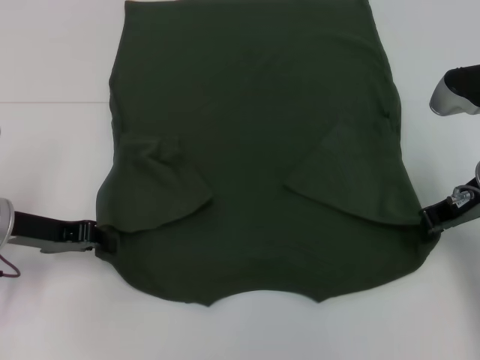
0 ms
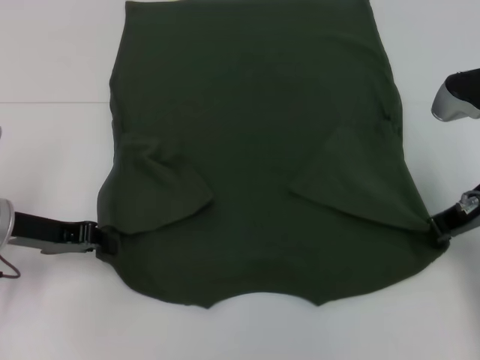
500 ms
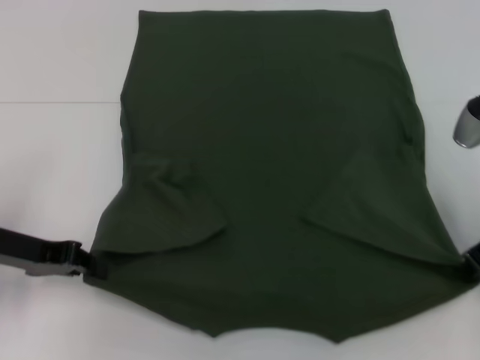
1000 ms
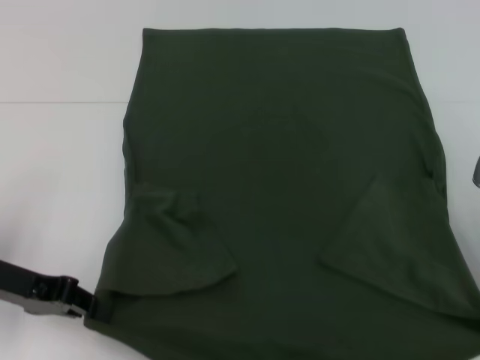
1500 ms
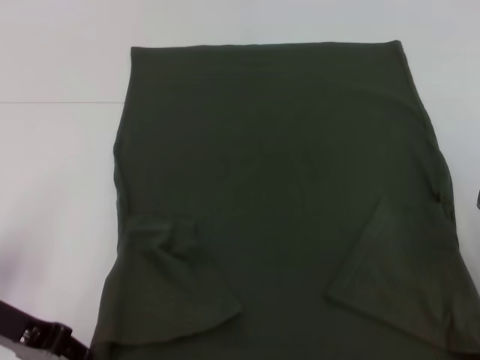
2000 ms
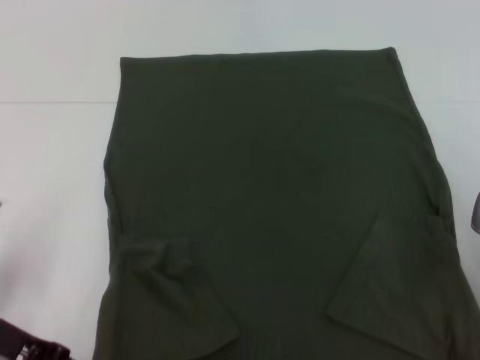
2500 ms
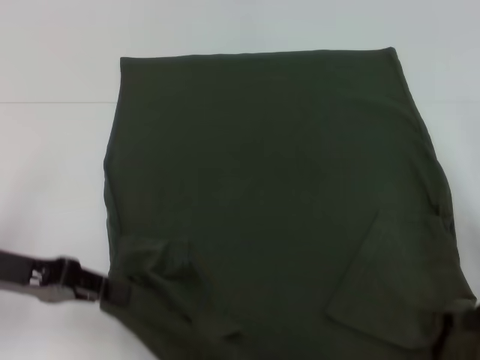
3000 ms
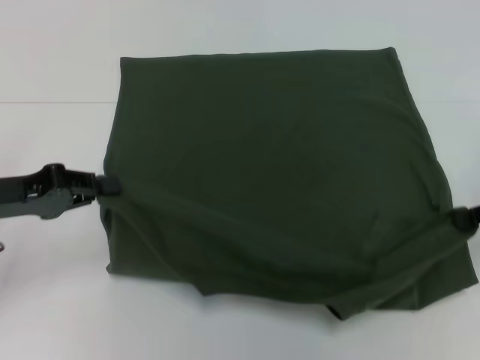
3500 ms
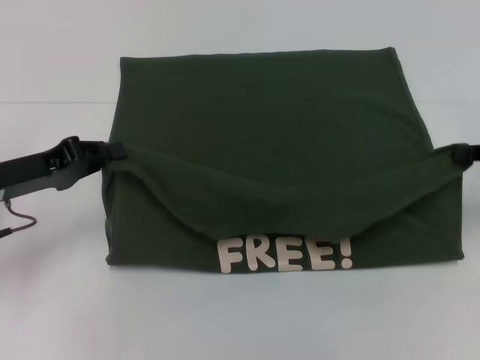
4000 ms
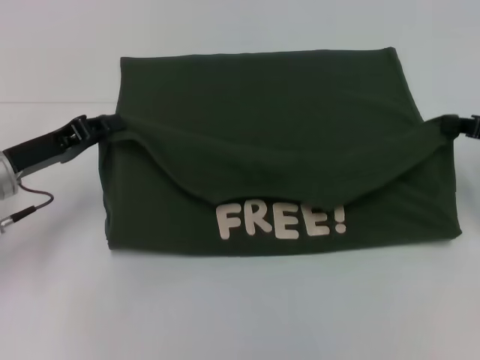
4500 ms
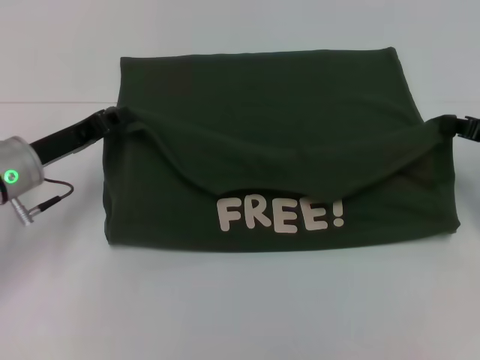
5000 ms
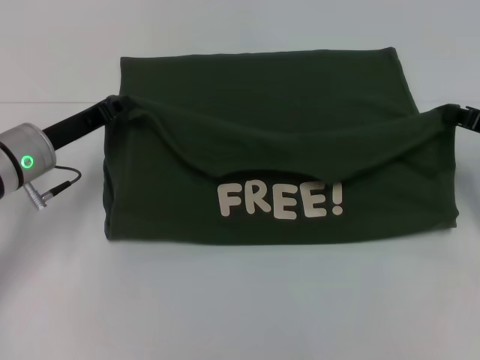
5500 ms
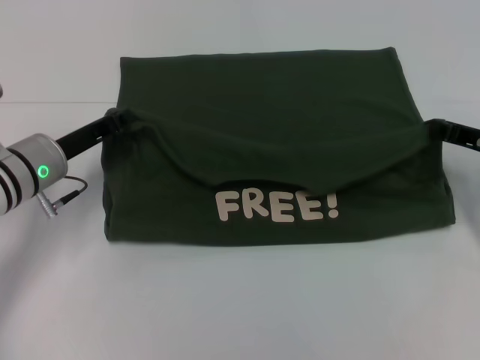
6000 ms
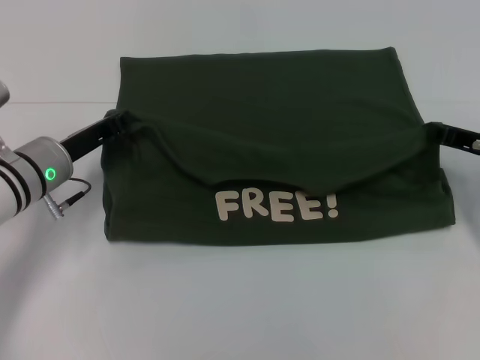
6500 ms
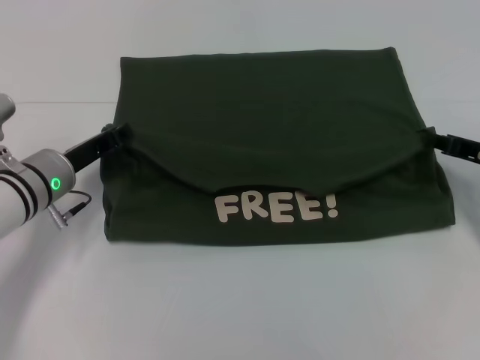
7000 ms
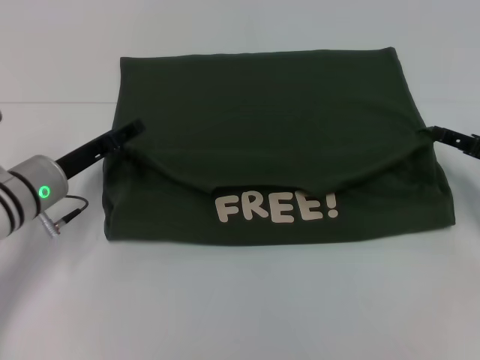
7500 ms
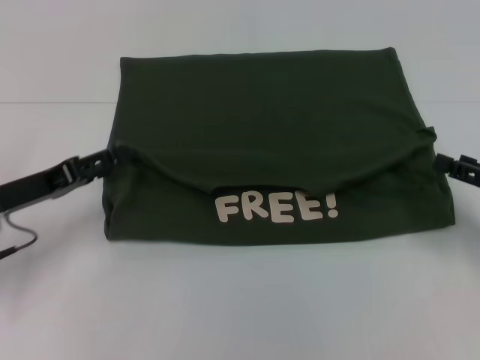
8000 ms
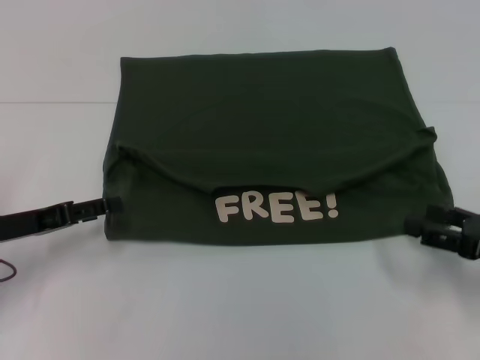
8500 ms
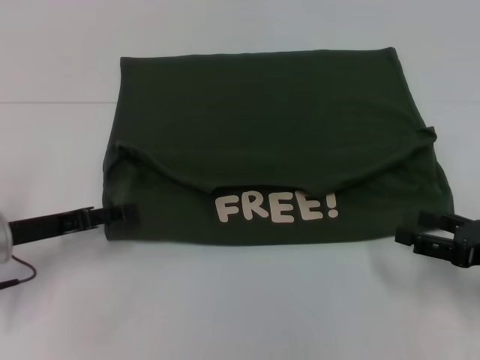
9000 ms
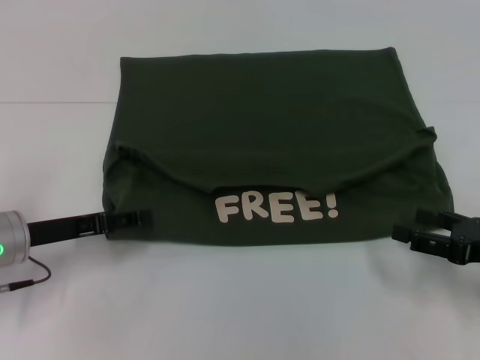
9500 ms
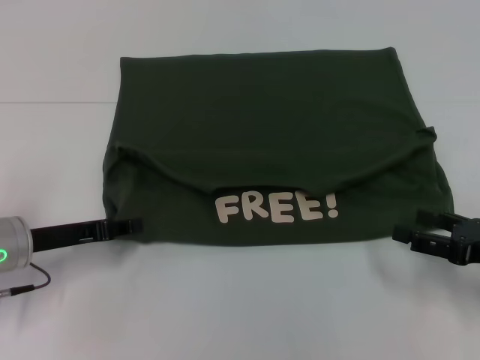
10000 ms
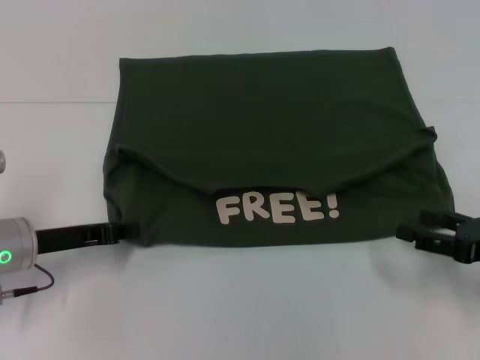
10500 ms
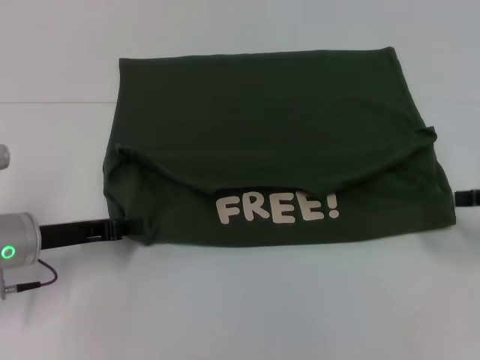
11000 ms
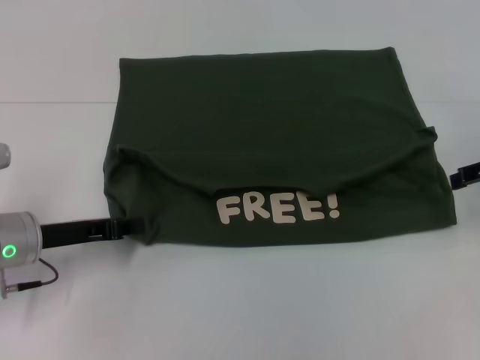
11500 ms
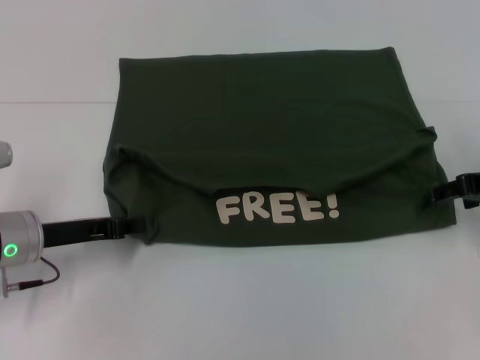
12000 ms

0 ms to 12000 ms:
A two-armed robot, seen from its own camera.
Step, 500 ms to 2000 ms: Pull the clothes with your left hand.
Step, 500 ms to 2000 ms: Pull the clothes with your right hand.
Step, 2500 ms to 8000 ms: Fold the clothes with your left hand.
Step, 2500 ms to 8000 ms: Fold the clothes with your right hand.
0 ms to 2000 ms: The grippers both shift backward by roughly 5 cm.
2000 ms to 4000 ms: The left gripper is displaced forward by roughly 5 cm; the right gripper travels to the right by approximately 5 cm.
4000 ms to 6000 ms: The left gripper is displaced to the right and forward by some 10 cm, while the right gripper travels downward by some 5 cm.
6000 ms to 8000 ms: The right gripper is displaced backward by about 10 cm, and opens up. Meanwhile the left gripper shifts about 10 cm backward and to the left, and opens up.
10000 ms to 12000 ms: The right gripper goes approximately 15 cm forward and upward. Meanwhile the left gripper closes its fingers.

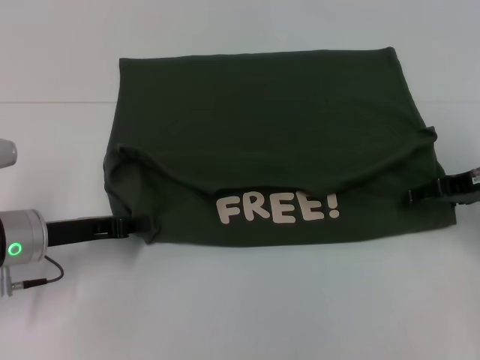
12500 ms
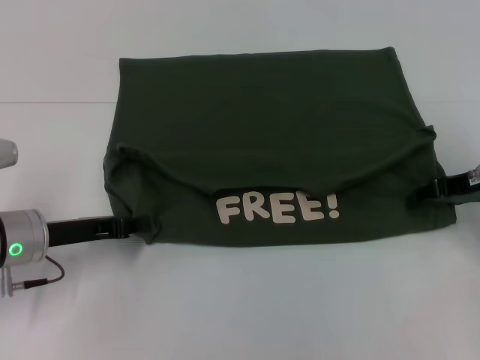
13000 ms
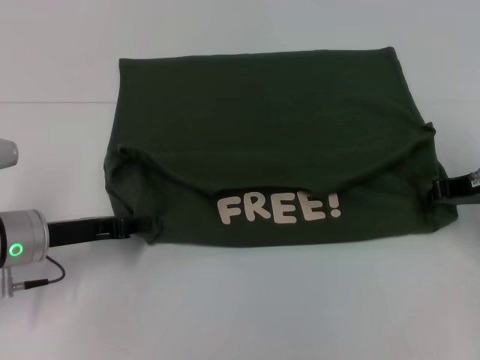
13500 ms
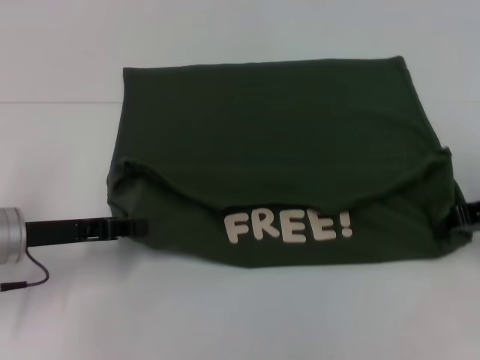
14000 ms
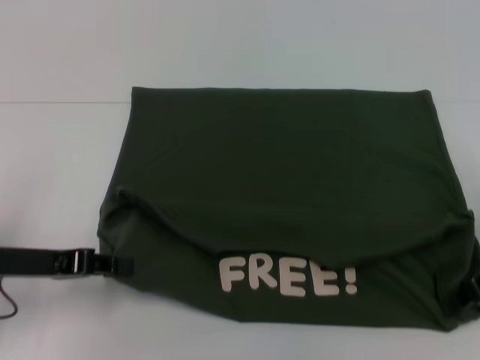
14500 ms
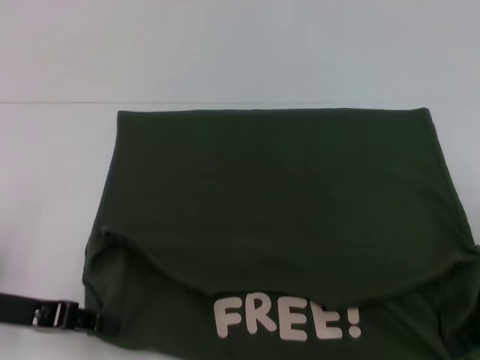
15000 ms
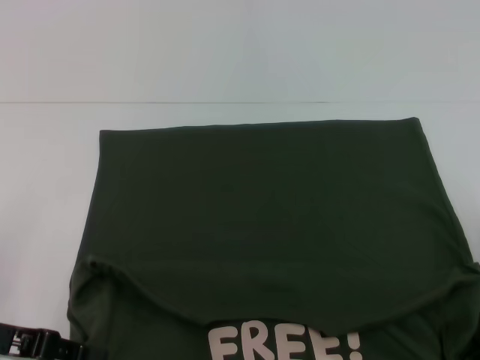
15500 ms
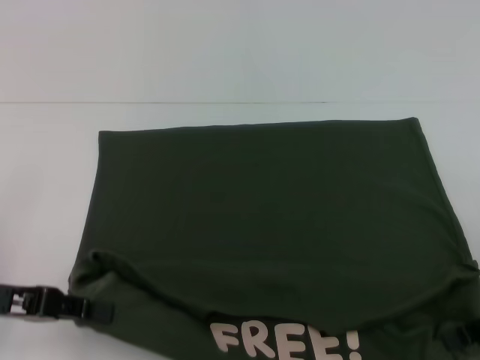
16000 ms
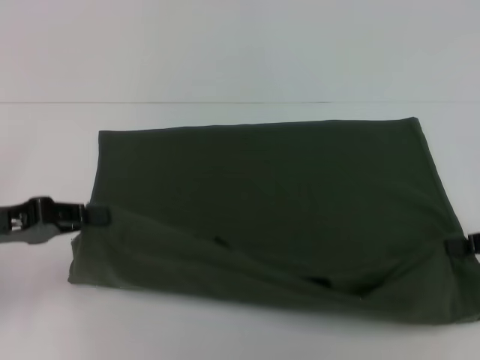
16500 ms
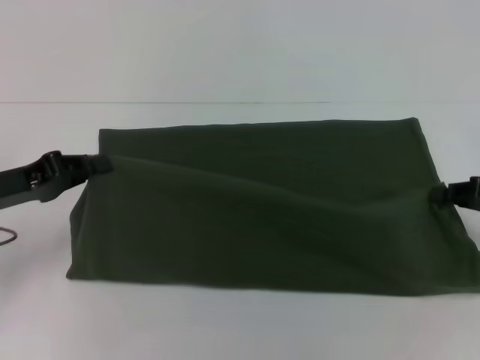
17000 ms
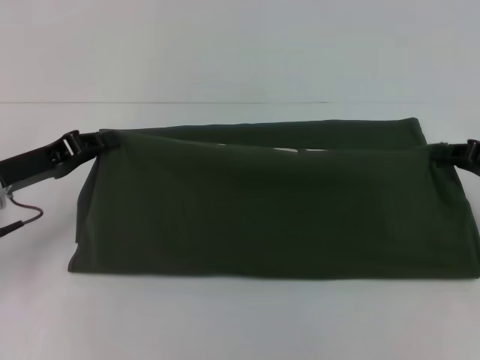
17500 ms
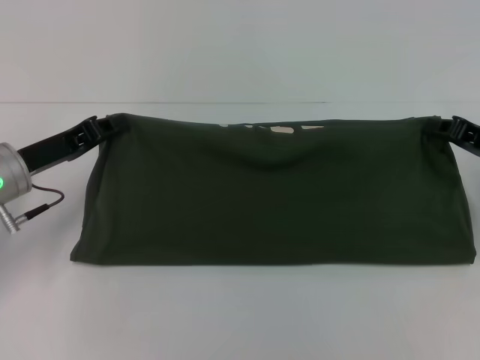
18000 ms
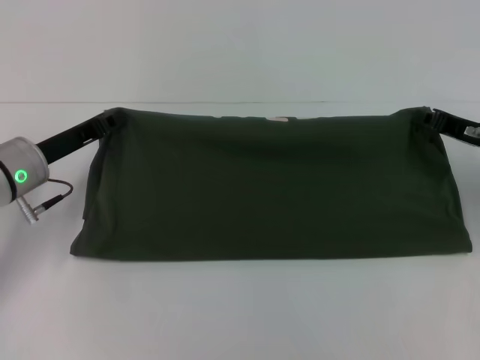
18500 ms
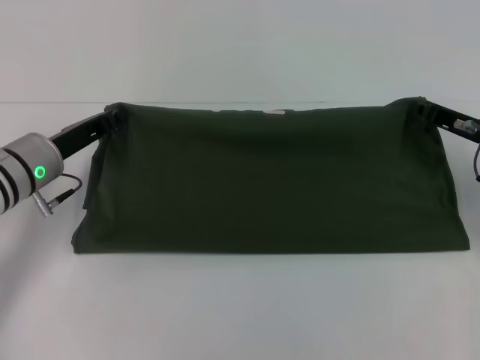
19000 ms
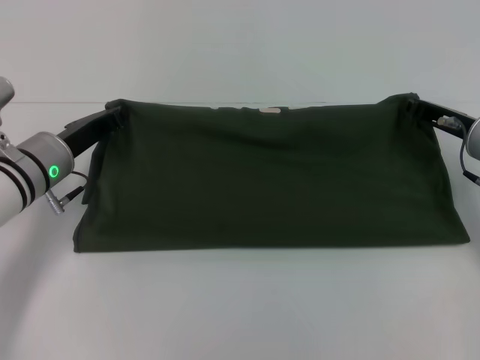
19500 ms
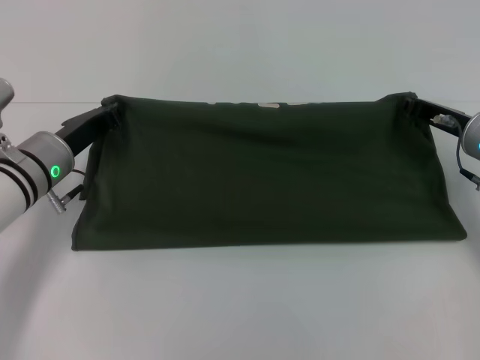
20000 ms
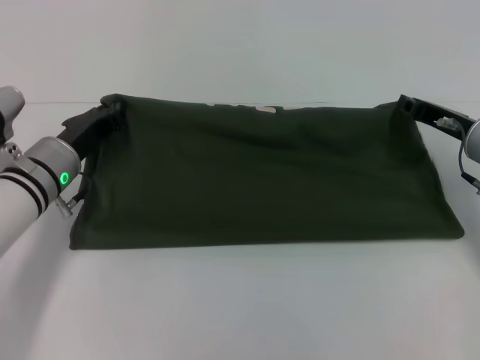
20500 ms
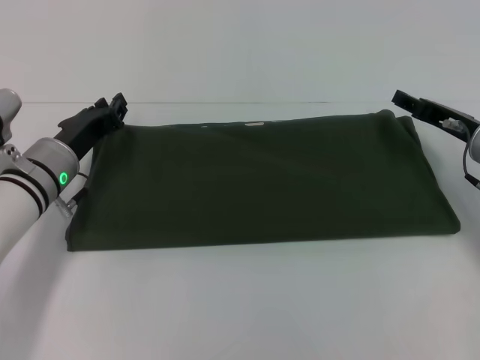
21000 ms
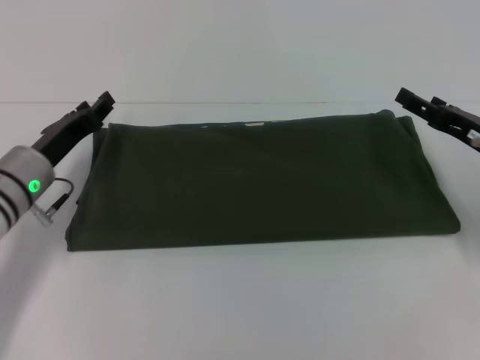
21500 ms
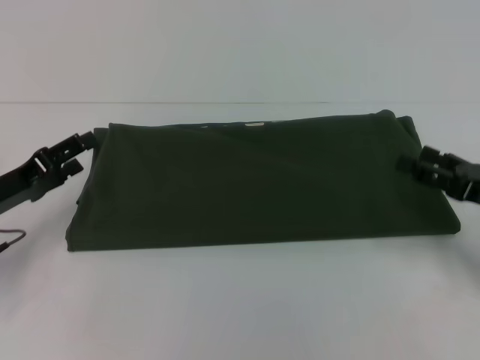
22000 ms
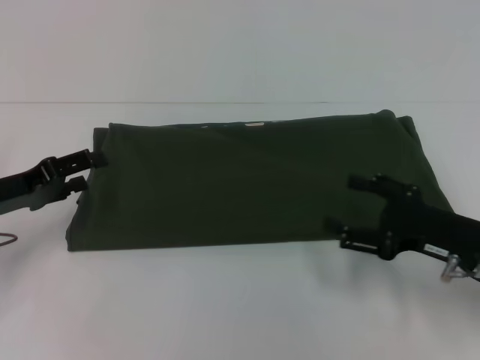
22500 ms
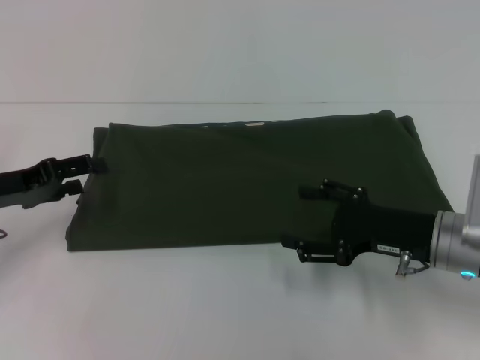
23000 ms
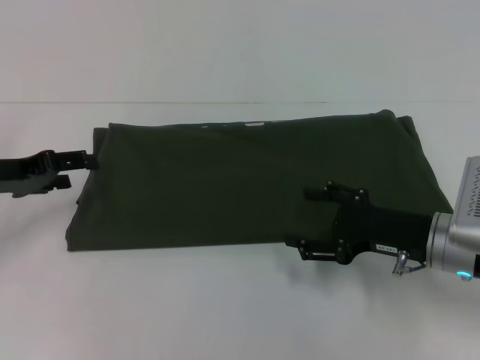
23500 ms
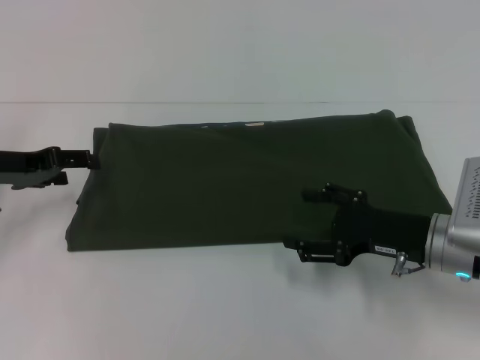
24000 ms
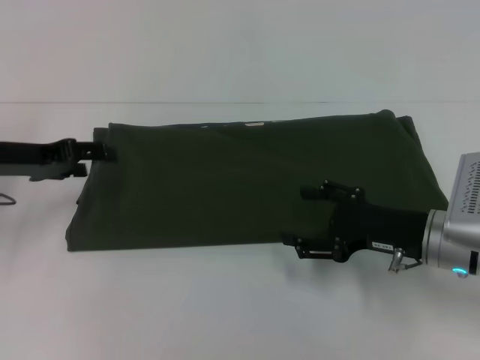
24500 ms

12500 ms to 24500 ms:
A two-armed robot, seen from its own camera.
Step, 12500 ms to 15000 ms: Pull the clothes with your left hand.
Step, 12500 ms to 15000 ms: Pull the clothes with your right hand.
Step, 15500 ms to 21000 ms: Fold the clothes with your right hand.
12500 ms to 14500 ms: The left gripper changes place by roughly 5 cm. The right gripper travels backward by about 5 cm, and closes up.
16500 ms to 18500 ms: The right gripper goes roughly 10 cm forward and to the left. Meanwhile the left gripper moves forward and to the right, roughly 10 cm.
18500 ms to 20500 ms: The grippers make only small movements.
20500 ms to 22500 ms: The left gripper moves to the left and backward, about 10 cm, and opens its fingers. Meanwhile the right gripper shifts roughly 10 cm backward, and opens.
22500 ms to 24500 ms: The left gripper goes approximately 5 cm forward. Meanwhile the right gripper changes place by roughly 5 cm.

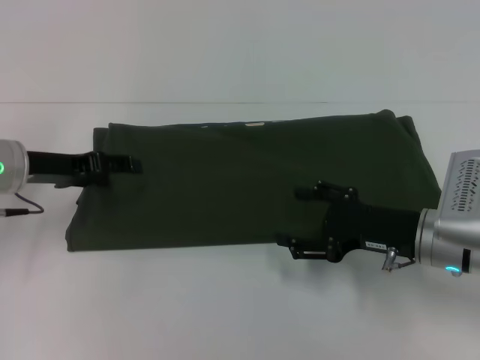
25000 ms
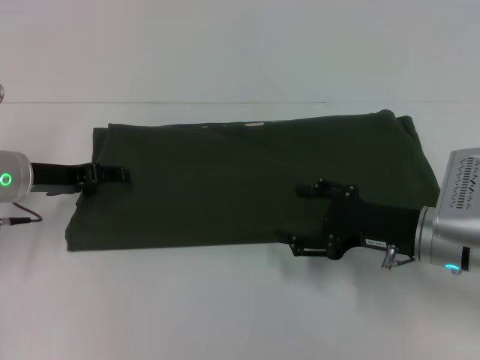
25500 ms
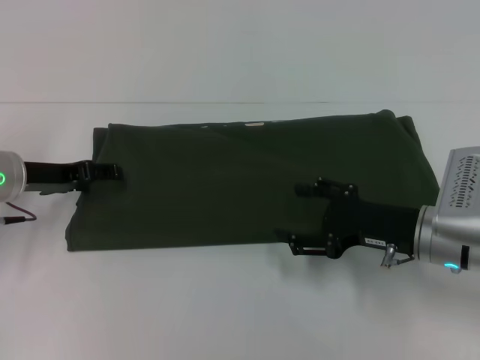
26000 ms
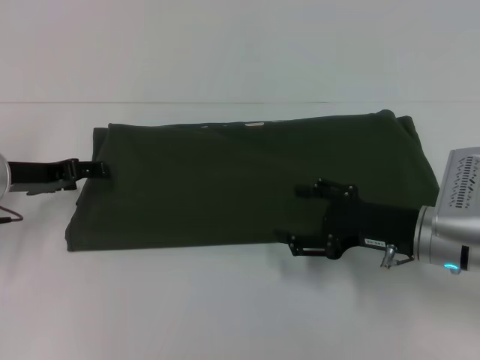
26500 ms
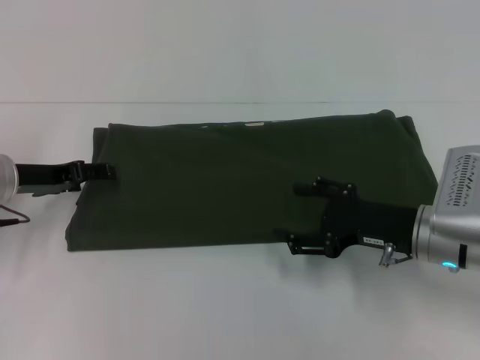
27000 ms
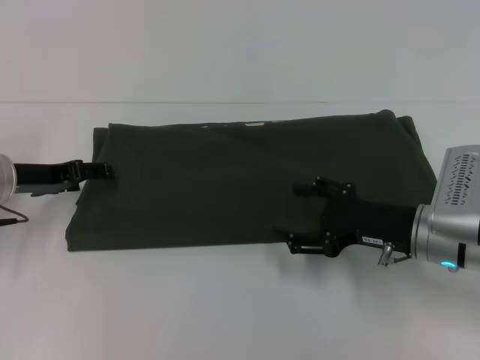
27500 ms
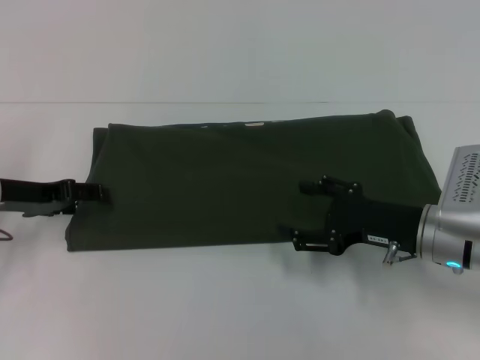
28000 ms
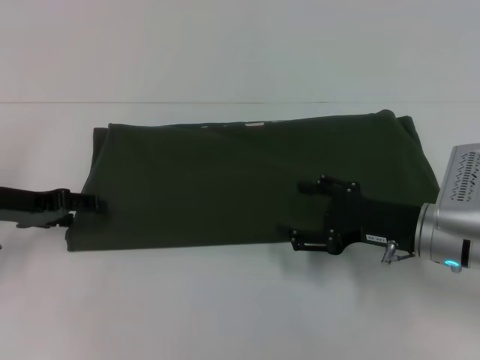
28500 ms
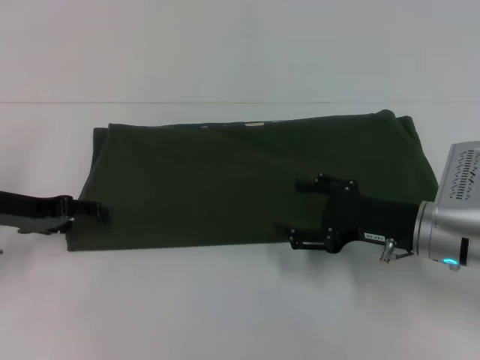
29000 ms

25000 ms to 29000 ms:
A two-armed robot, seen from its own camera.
25000 ms to 29000 ms: There are only small adjustments of the grippers.
